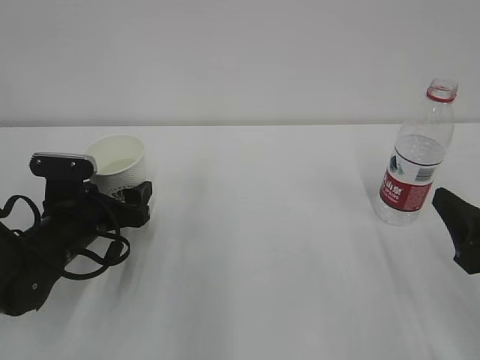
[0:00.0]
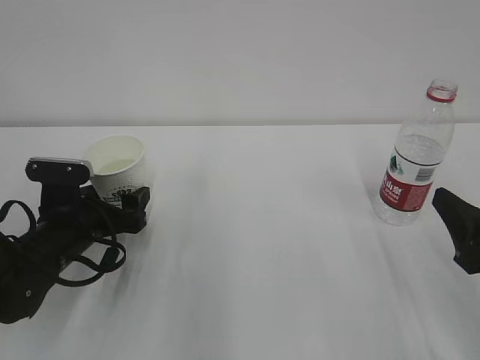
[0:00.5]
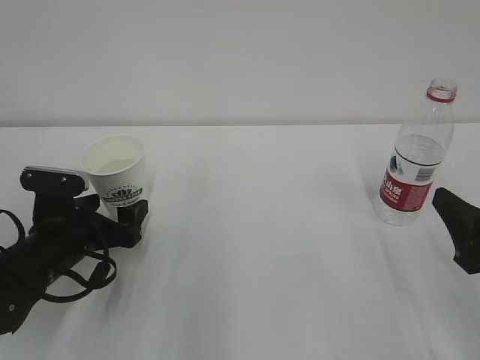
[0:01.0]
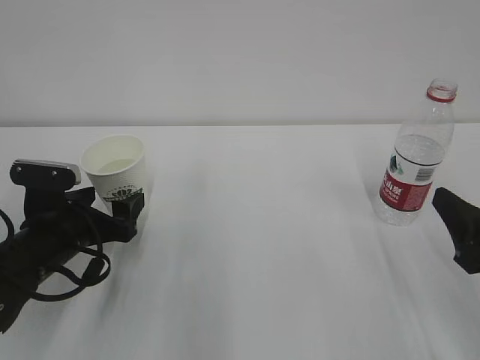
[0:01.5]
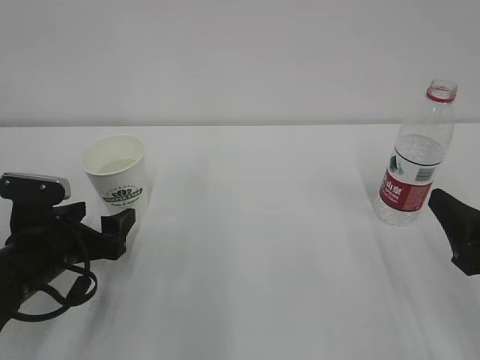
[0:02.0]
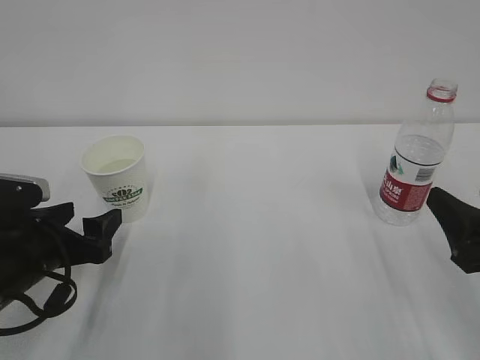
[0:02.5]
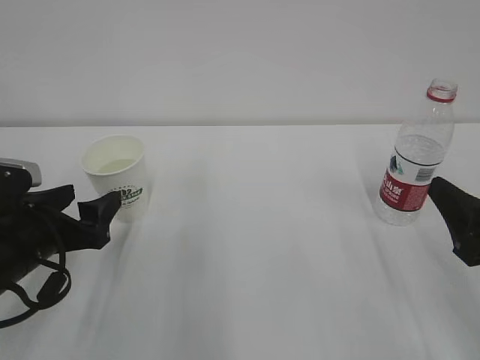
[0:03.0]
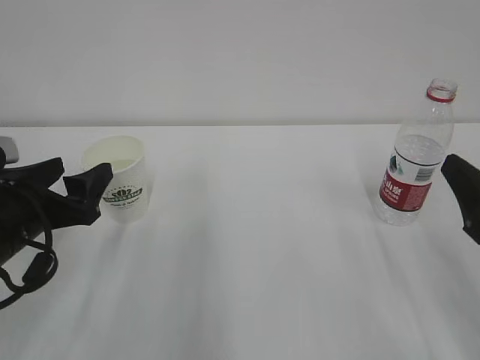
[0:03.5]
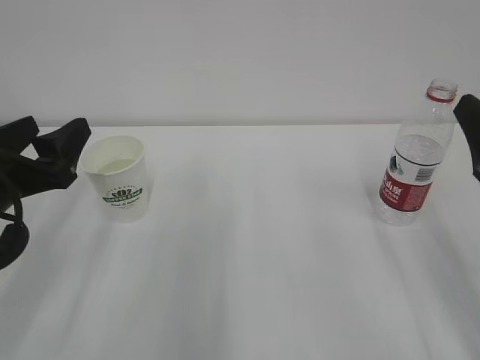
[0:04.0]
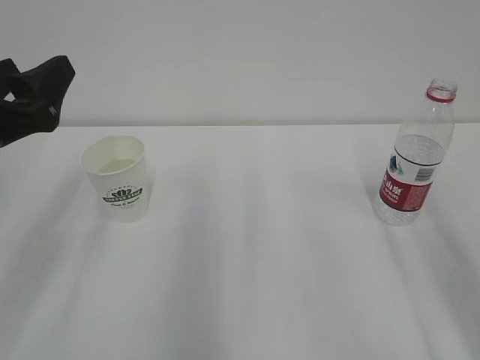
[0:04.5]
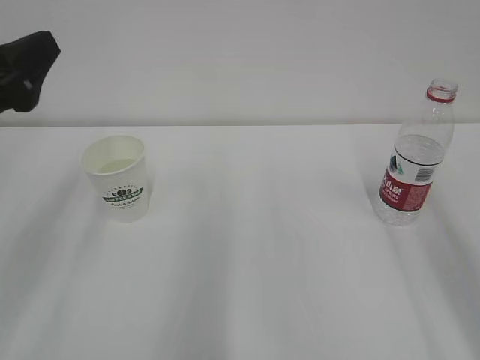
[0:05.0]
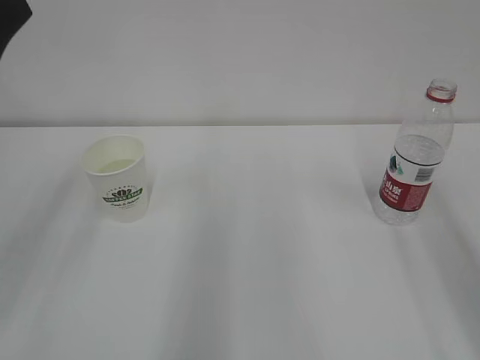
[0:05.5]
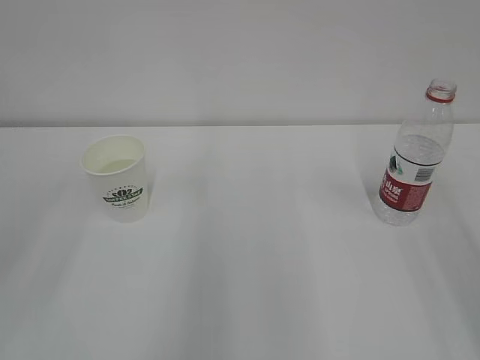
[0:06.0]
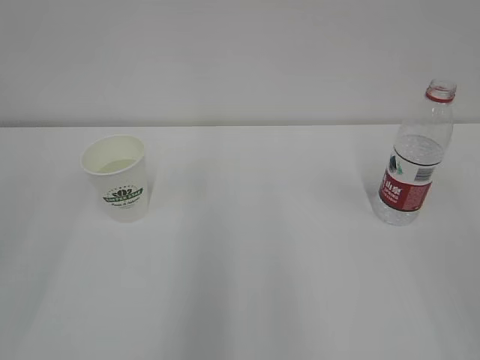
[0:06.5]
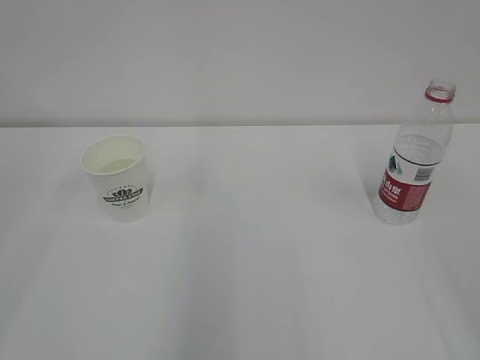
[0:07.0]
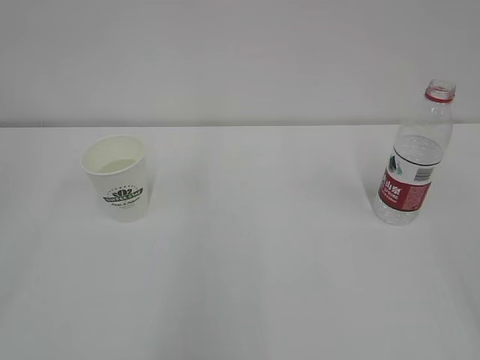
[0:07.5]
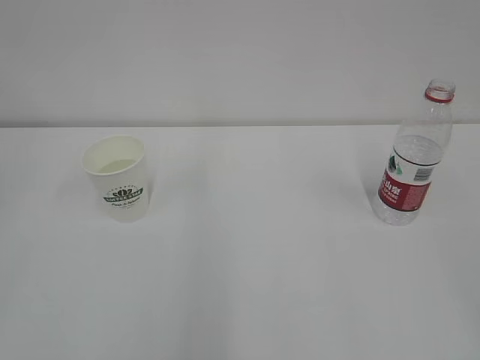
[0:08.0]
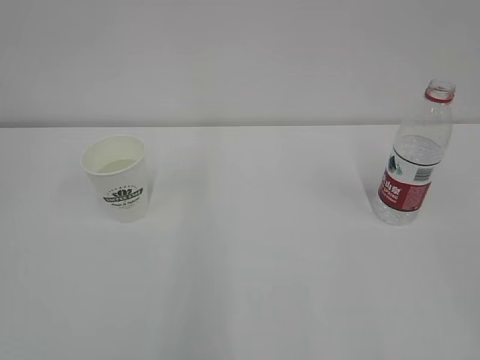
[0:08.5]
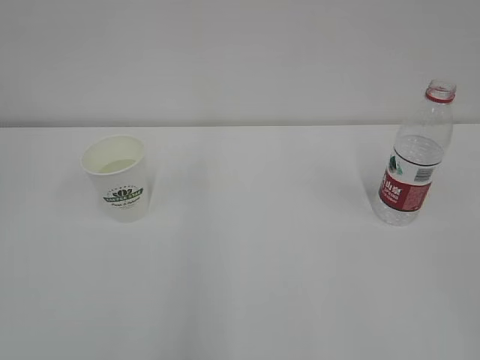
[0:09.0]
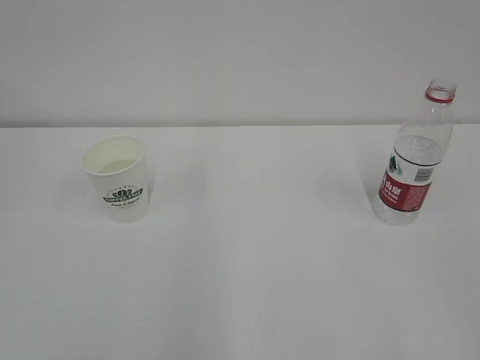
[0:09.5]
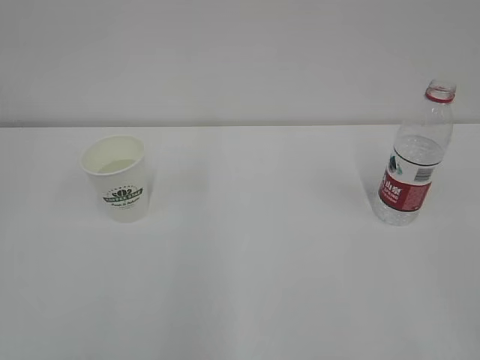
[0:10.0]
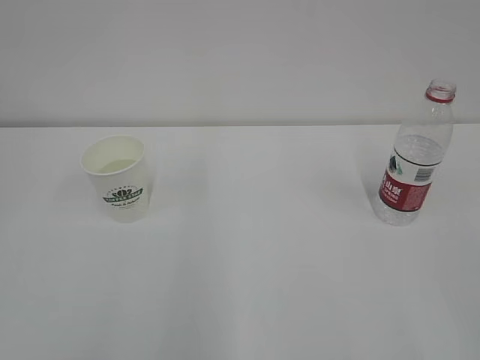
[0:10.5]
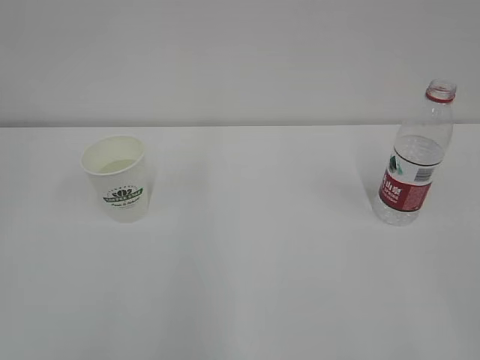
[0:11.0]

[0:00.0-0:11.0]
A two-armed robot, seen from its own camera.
0:00.0 to 0:02.0: The left gripper shifts by about 5 cm.
0:02.0 to 0:03.5: The left gripper travels upward by roughly 5 cm.
0:03.5 to 0:05.5: The grippers both shift upward by approximately 15 cm.
0:05.5 to 0:07.5: The left gripper travels backward and to the left by approximately 20 cm.

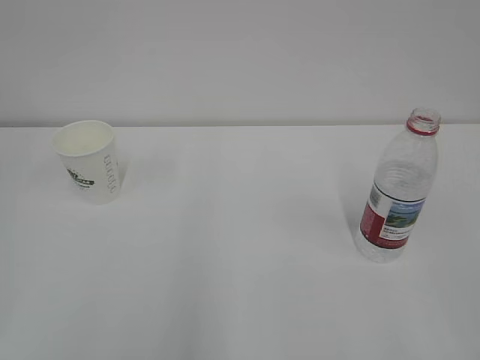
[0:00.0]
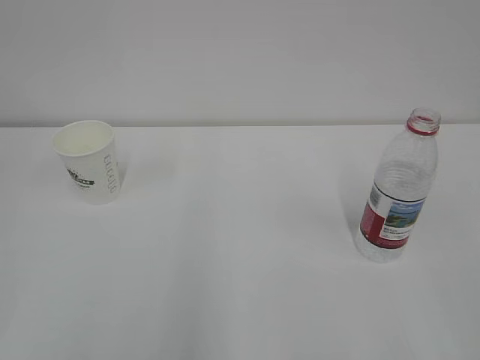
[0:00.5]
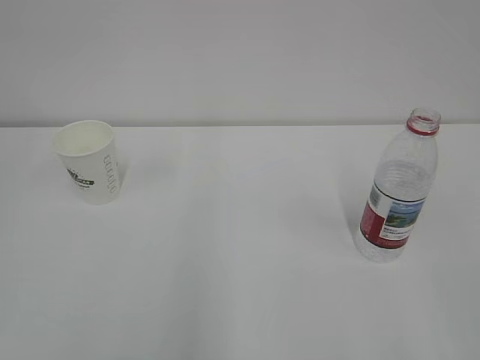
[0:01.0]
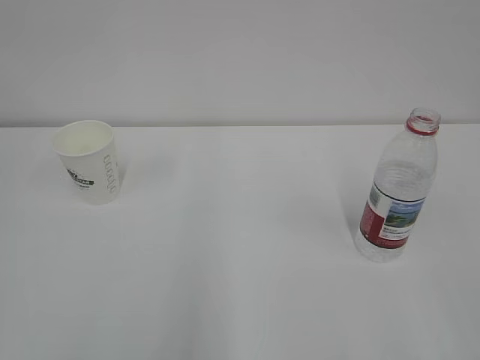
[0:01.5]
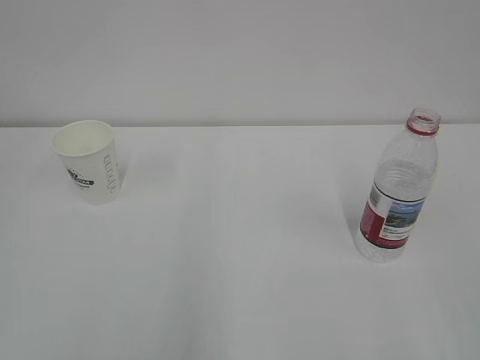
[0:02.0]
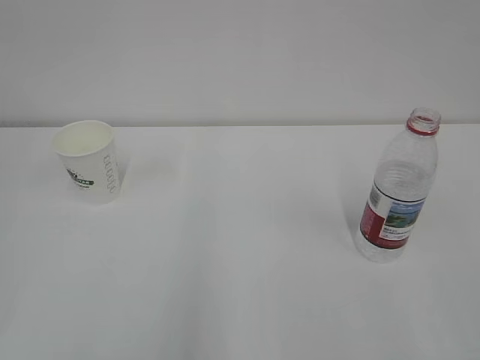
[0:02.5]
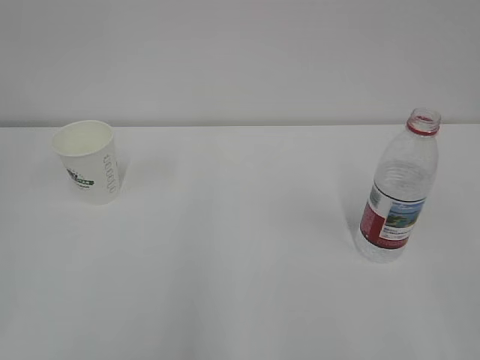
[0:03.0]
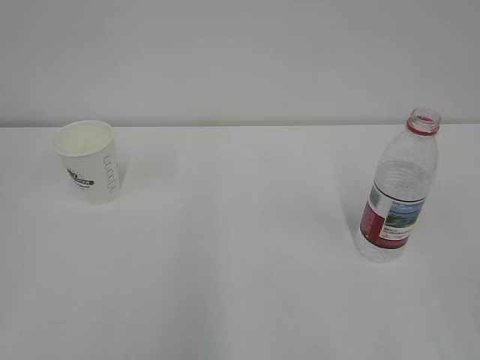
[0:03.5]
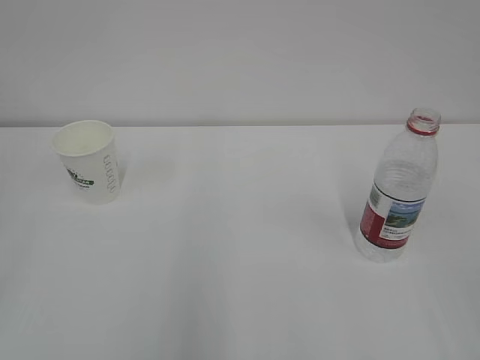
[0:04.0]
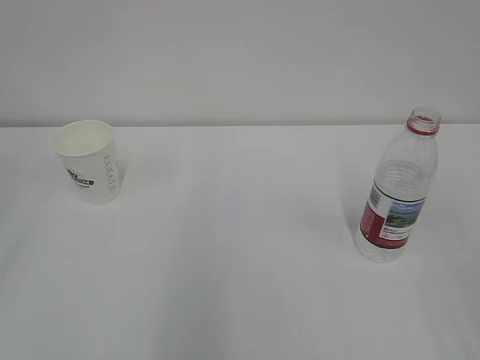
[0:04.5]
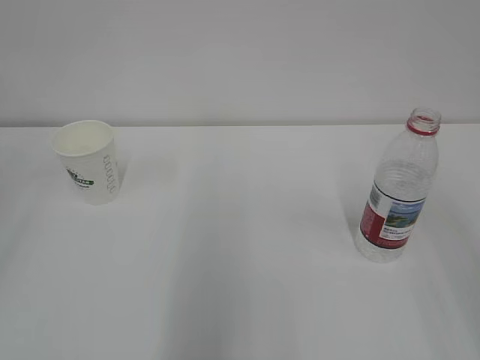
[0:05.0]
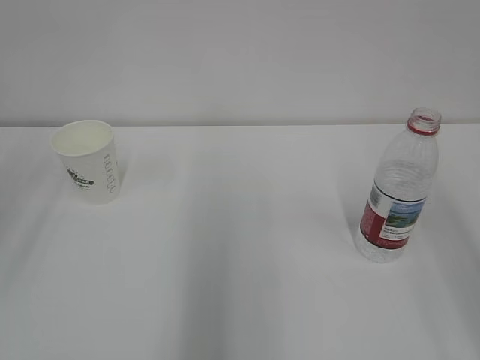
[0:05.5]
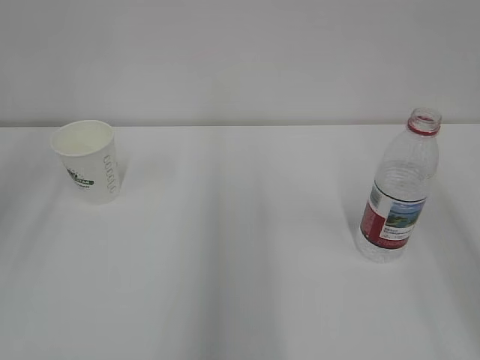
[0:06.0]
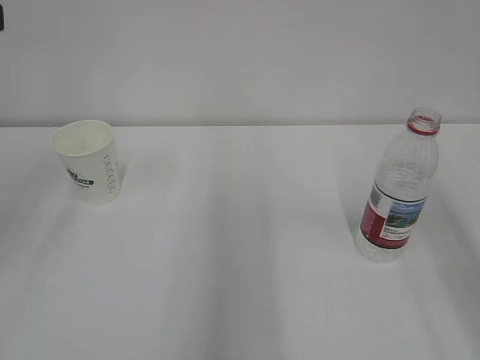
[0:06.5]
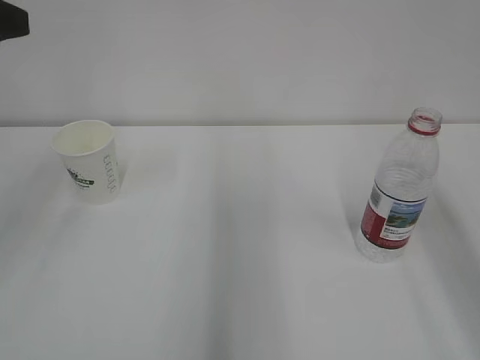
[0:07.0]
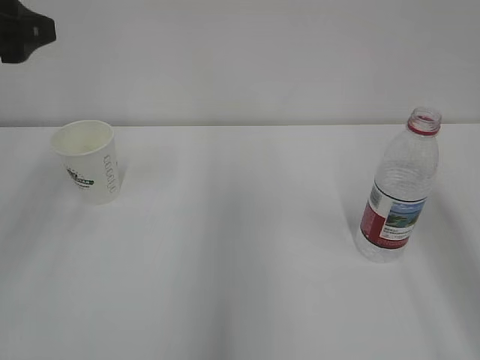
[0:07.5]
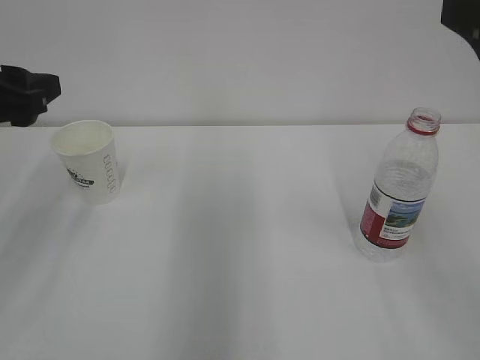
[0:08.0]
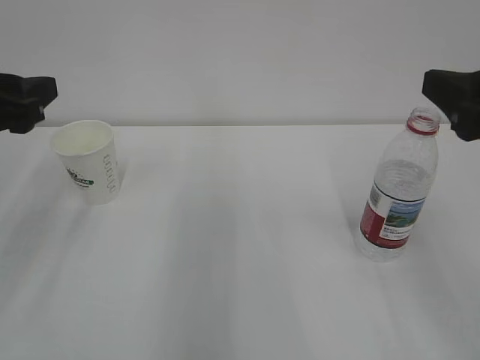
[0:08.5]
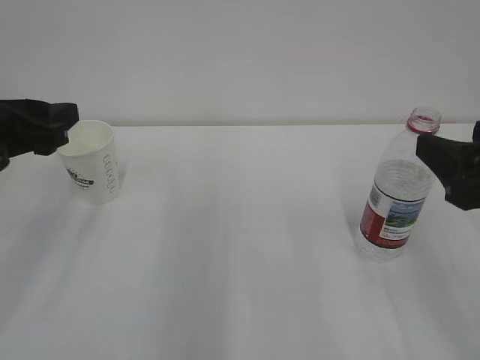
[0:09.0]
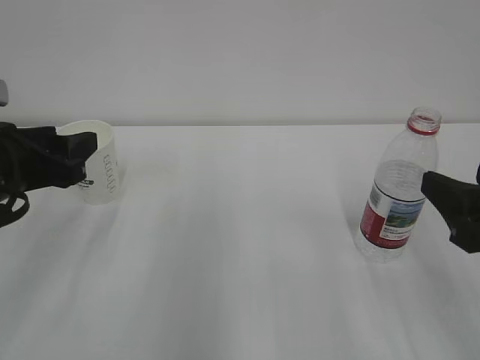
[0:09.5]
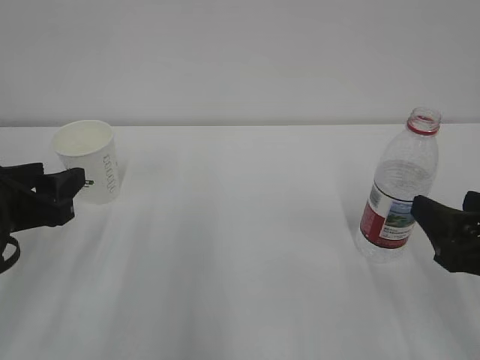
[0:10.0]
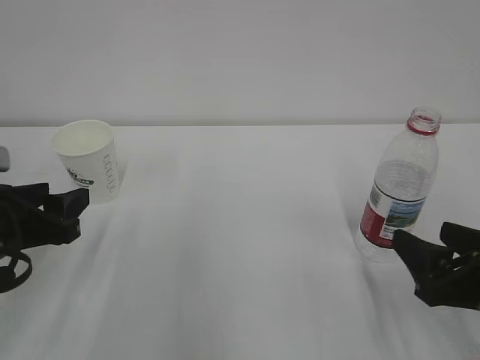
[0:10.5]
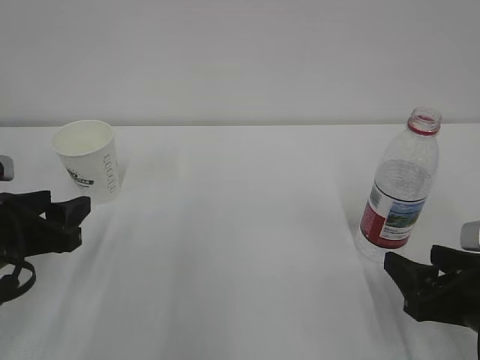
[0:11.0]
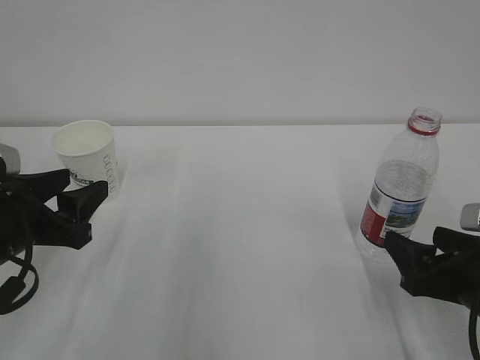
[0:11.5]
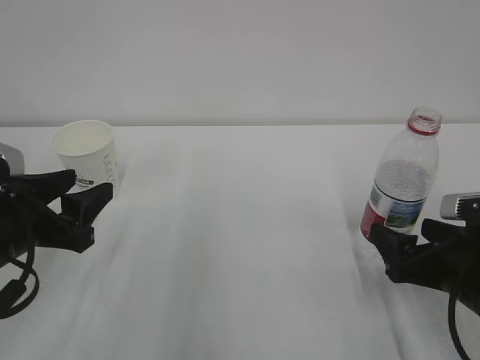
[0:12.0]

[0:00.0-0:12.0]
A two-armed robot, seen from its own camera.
0:06.0 to 0:08.0: The left gripper moves downward and forward, about 15 cm, while the right gripper travels forward by about 10 cm.
0:08.0 to 0:10.0: The left gripper moves downward, approximately 10 cm. Meanwhile the right gripper heads downward, covering some 15 cm.
0:10.0 to 0:12.0: The right gripper is displaced downward by some 5 cm, and opens its fingers.

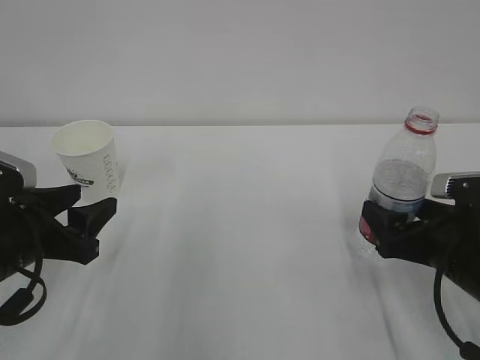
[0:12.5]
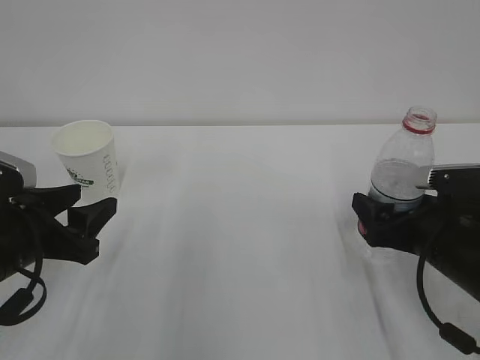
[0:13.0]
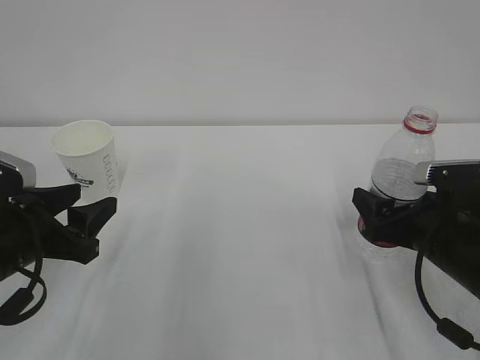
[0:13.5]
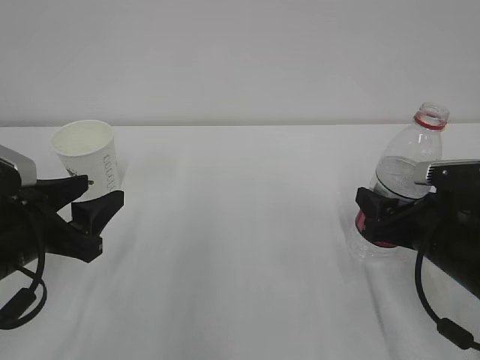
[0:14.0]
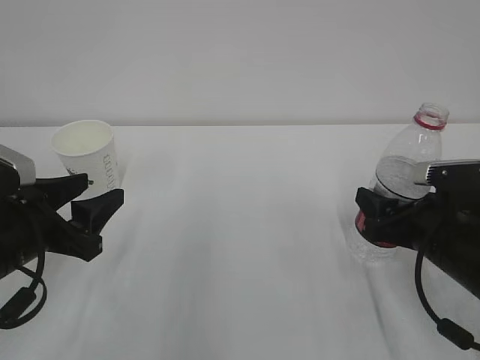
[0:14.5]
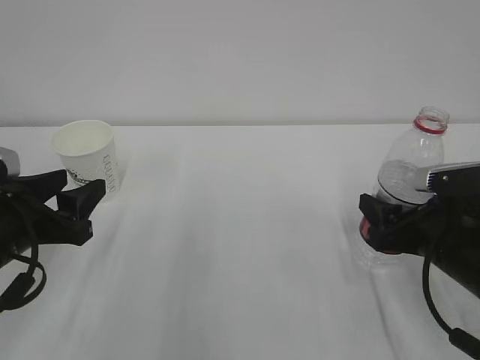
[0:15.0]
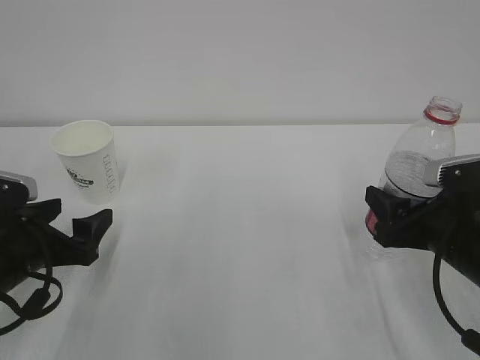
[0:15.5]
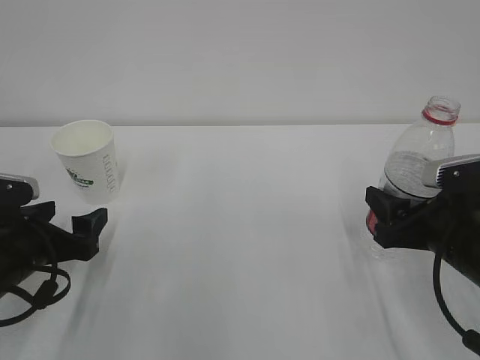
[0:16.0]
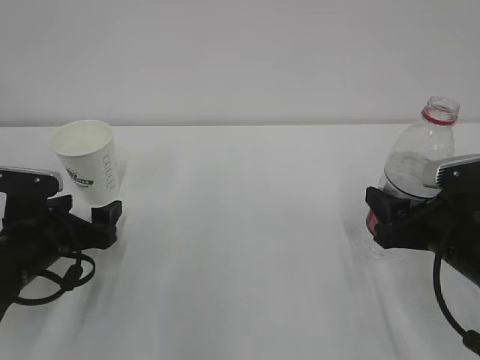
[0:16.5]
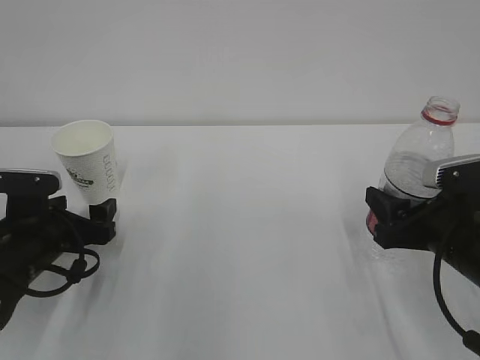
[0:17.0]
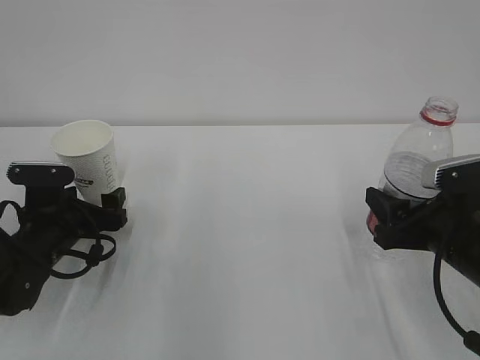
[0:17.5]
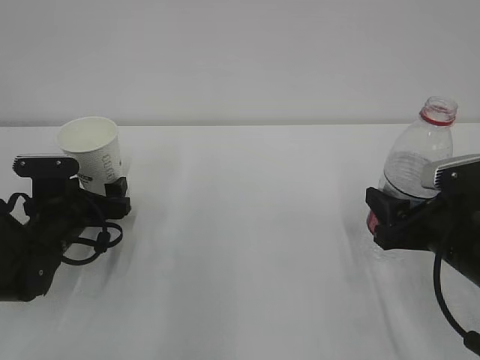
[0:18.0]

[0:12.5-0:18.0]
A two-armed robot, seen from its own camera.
0:12.5 to 0:14.5: The right gripper closes its fingers.
0:14.5 to 0:16.0: The left gripper shifts by about 5 cm, and opens.
0:16.0 to 0:18.0: The left gripper travels forward by about 10 cm.
